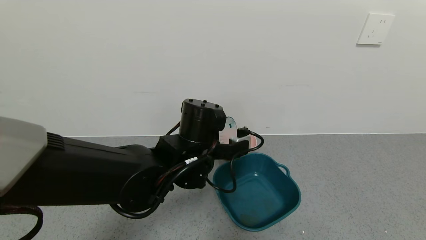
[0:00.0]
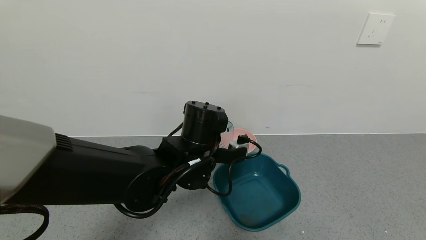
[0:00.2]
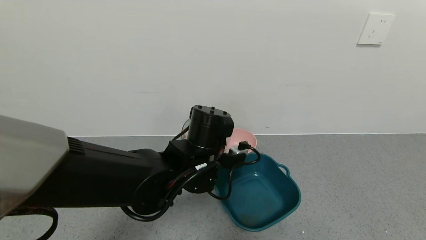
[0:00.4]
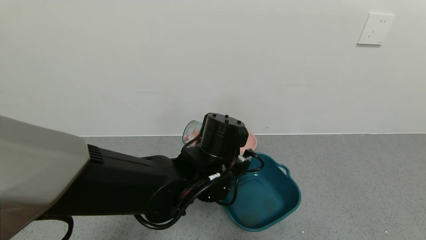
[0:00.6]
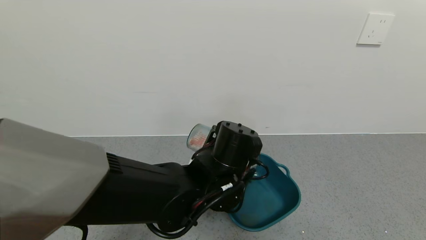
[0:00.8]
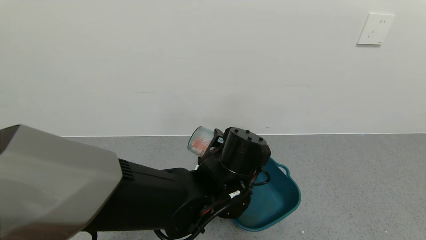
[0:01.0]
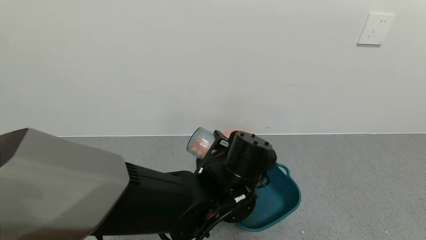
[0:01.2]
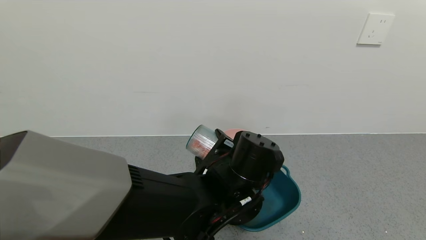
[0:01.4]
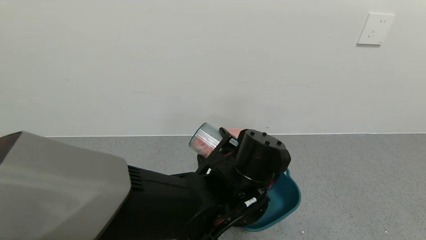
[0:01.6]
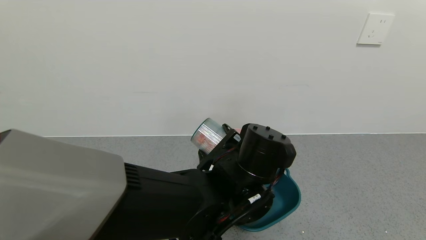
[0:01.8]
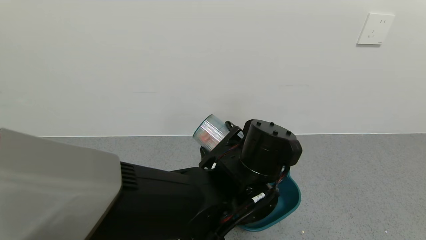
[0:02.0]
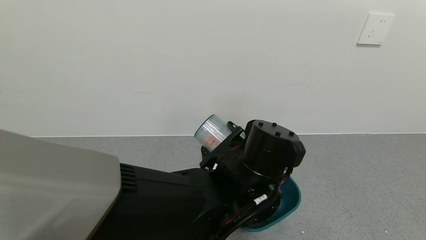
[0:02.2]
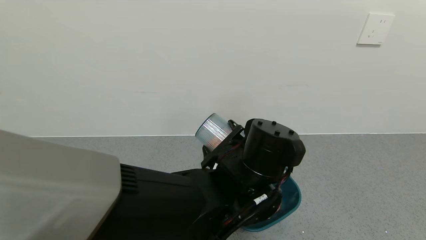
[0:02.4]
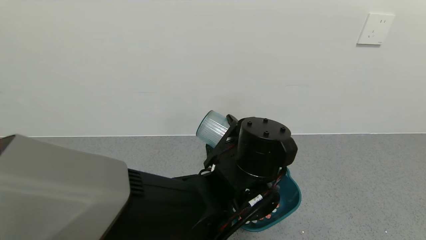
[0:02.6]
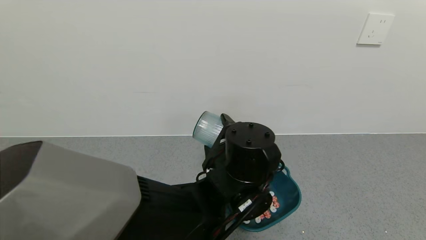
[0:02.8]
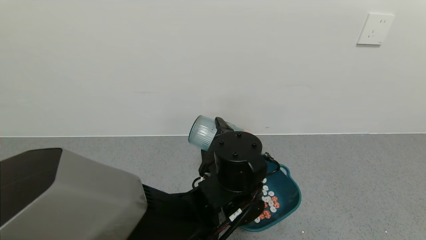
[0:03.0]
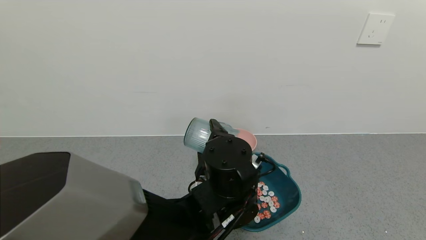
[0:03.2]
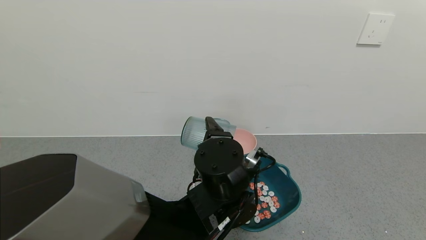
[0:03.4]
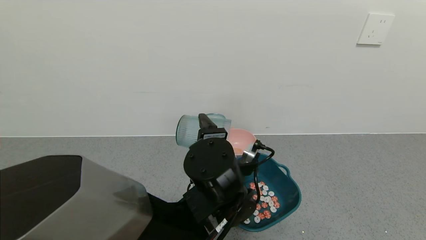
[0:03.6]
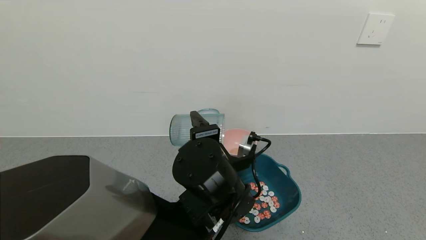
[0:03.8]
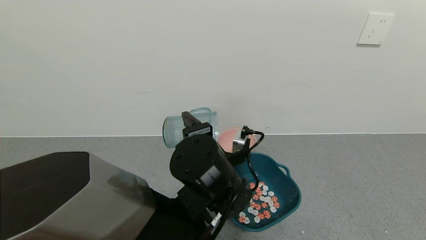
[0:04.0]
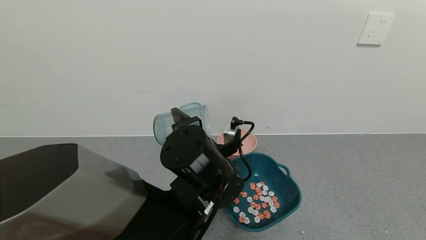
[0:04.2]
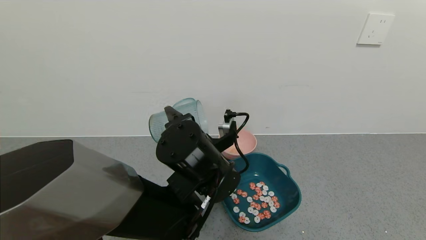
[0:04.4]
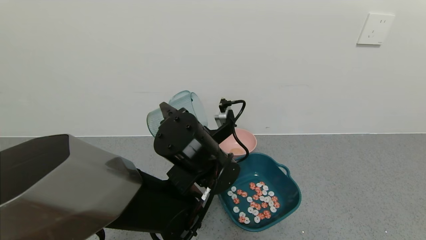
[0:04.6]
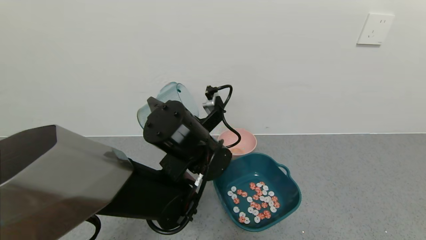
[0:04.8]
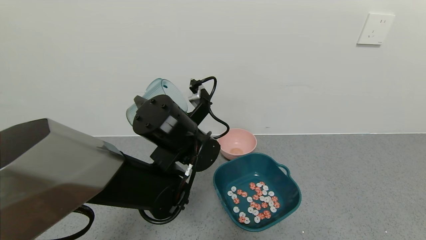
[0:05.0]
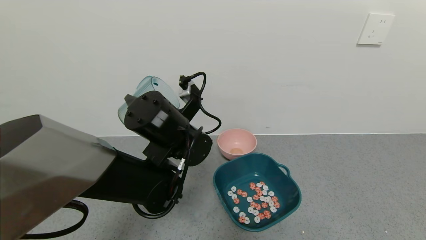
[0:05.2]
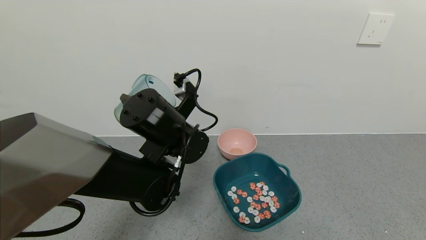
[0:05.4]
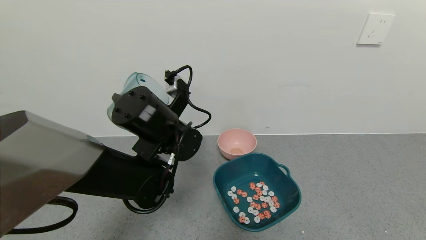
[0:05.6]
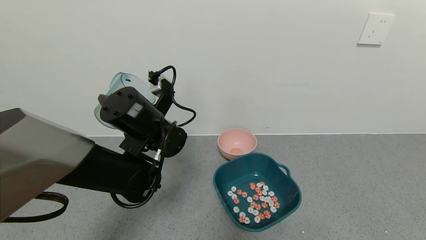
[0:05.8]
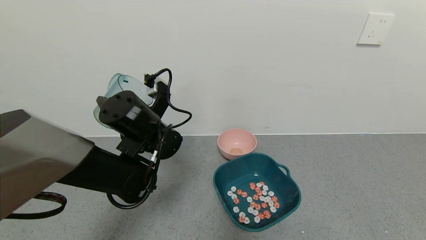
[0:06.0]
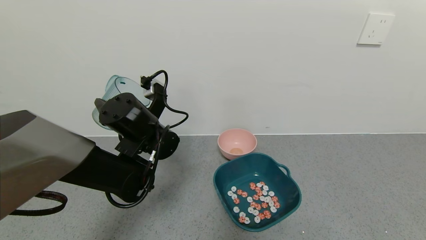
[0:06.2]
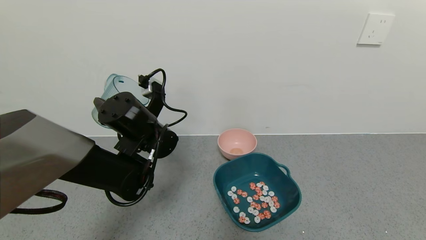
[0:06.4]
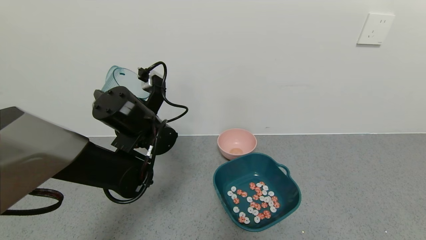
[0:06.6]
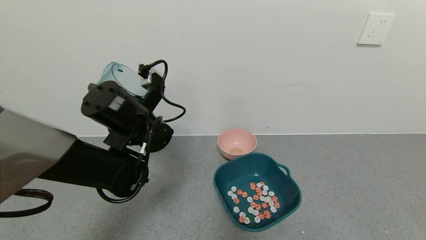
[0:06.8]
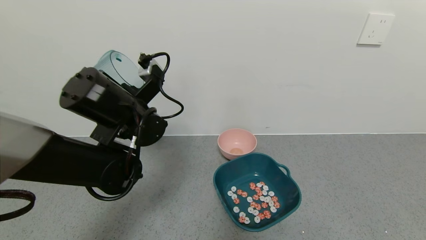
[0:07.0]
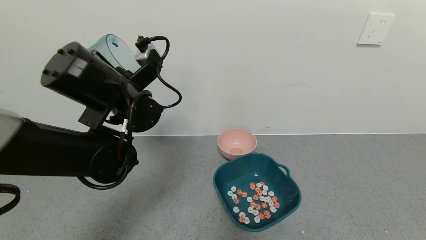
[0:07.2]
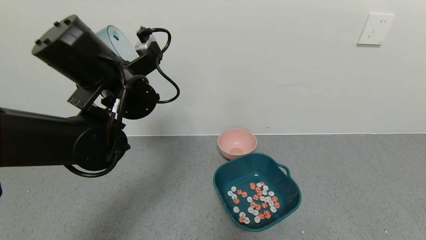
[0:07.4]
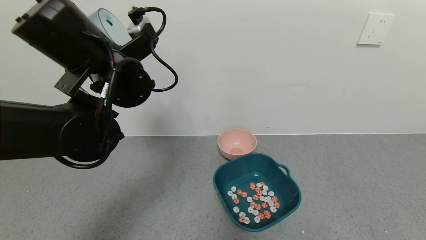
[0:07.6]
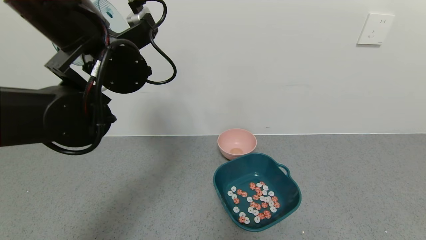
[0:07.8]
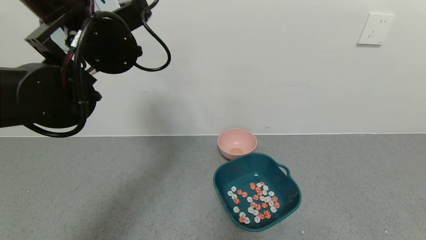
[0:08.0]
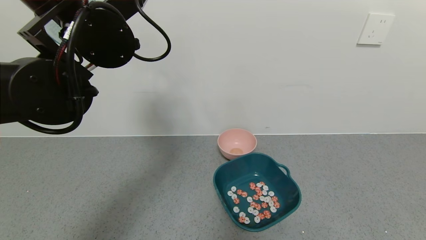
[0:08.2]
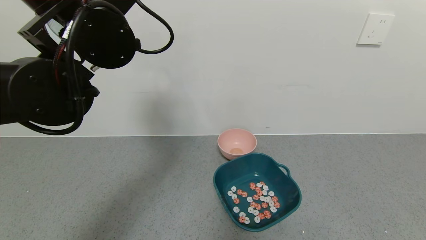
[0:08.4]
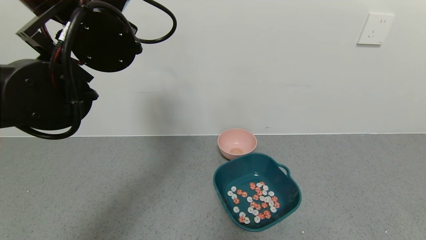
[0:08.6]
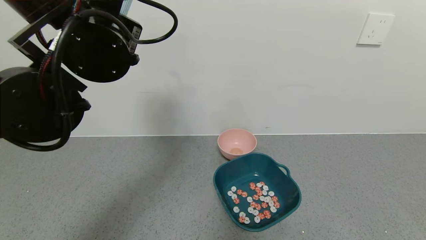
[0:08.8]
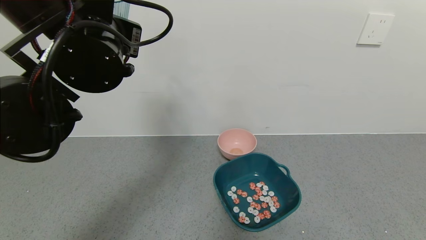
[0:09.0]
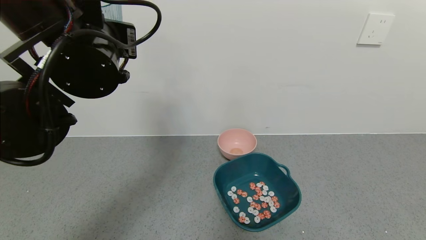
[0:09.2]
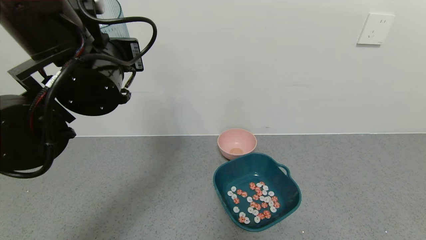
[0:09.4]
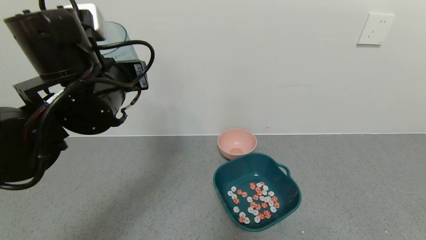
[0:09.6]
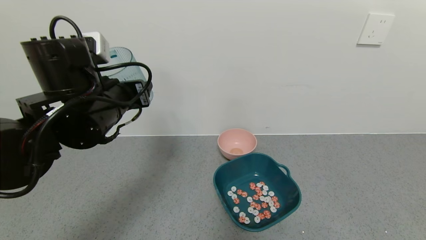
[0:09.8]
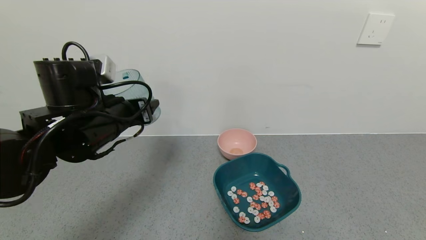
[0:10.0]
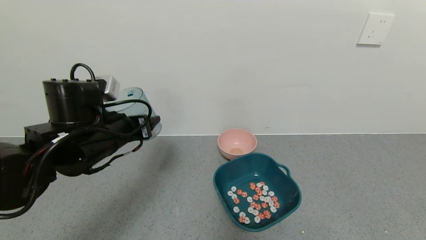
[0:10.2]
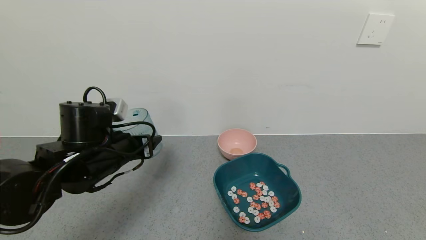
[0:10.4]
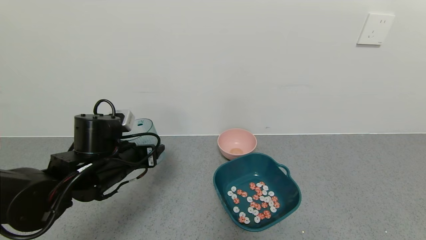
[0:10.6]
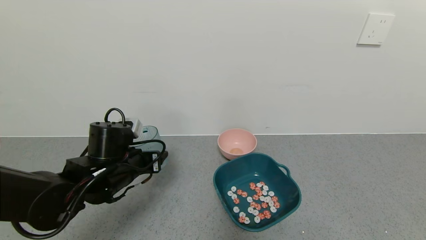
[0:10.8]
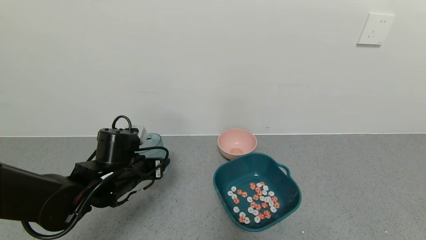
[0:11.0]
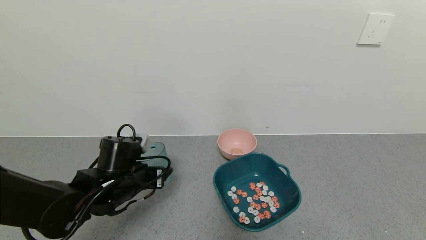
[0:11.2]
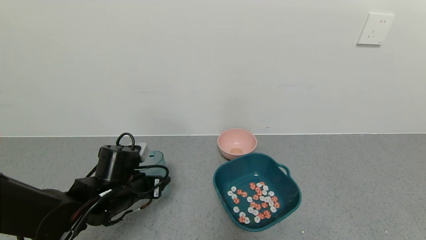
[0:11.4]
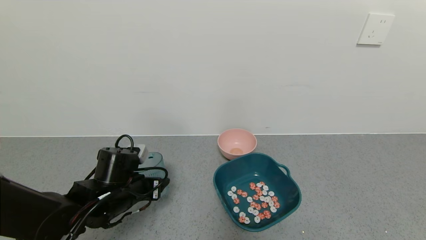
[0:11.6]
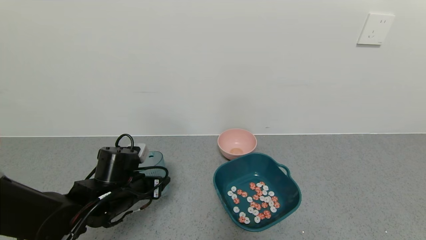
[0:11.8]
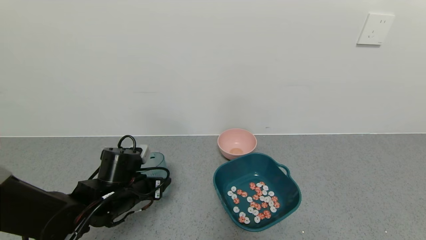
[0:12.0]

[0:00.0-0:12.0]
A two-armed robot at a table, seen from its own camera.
Task of the whole recording: use a gripper to pick up the cup and pour the solid into a bowl or tray.
Step, 0:00.0 to 0:03.6: Pour the shrimp beans into the green bowl with the left gripper.
0:00.0 to 0:01.6: The left gripper heads to the right, covering about 5 cm.
0:03.0 to 0:04.4: The left gripper moves about 5 cm.
0:04.4 to 0:06.0: The left gripper travels to the left and forward by roughly 15 cm.
0:06.0 to 0:07.6: The left gripper heads upward, covering some 10 cm.
0:09.0 to 0:10.4: The left gripper shifts some 15 cm downward.
0:10.4 to 0:12.0: The left gripper heads downward, covering approximately 10 cm.

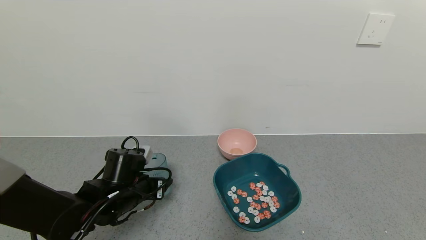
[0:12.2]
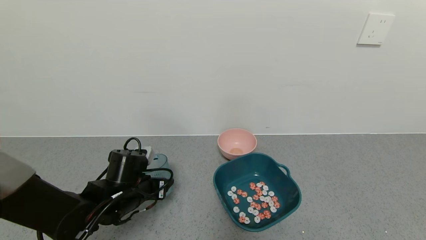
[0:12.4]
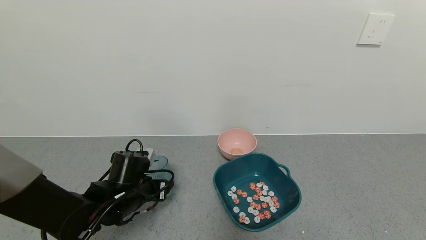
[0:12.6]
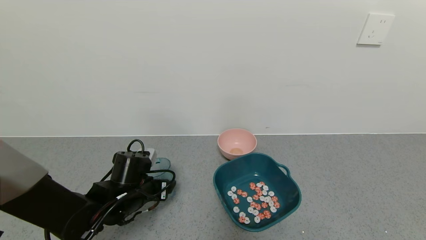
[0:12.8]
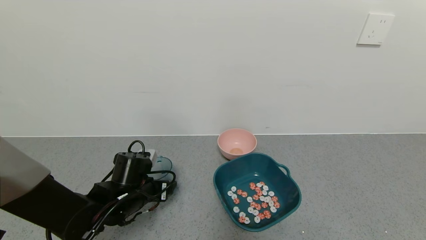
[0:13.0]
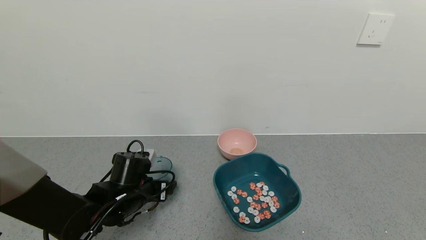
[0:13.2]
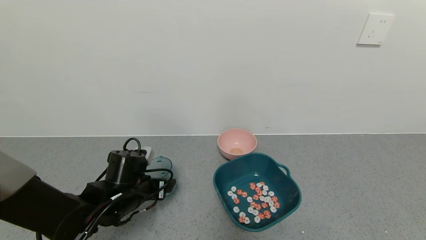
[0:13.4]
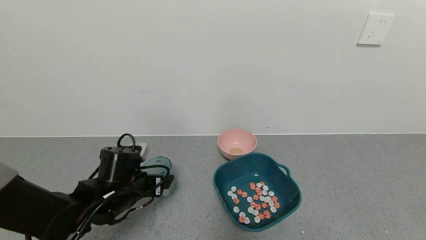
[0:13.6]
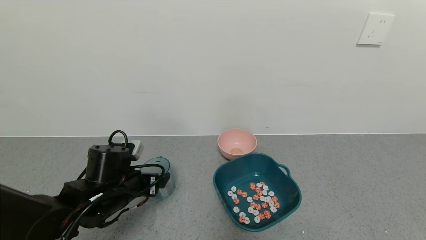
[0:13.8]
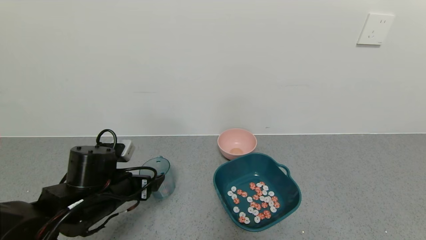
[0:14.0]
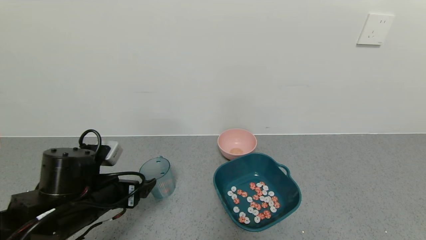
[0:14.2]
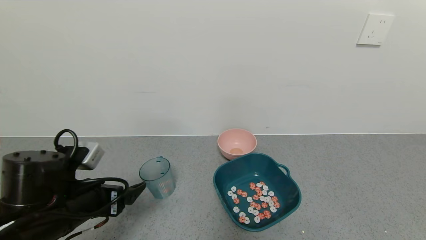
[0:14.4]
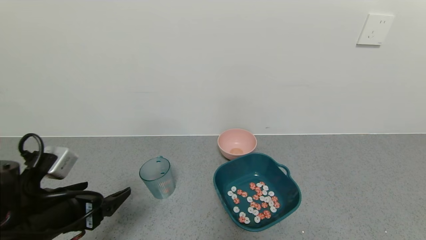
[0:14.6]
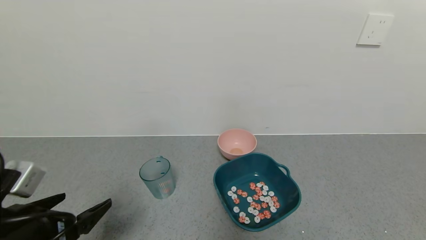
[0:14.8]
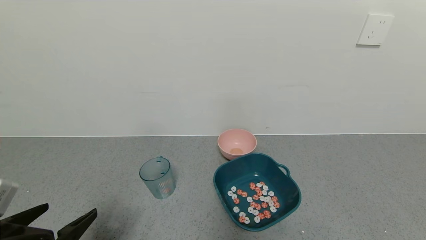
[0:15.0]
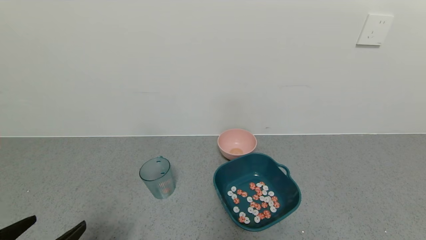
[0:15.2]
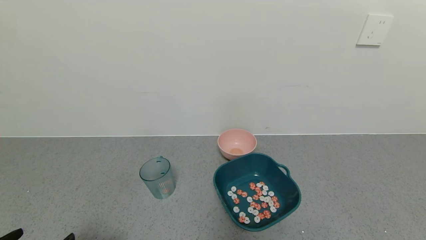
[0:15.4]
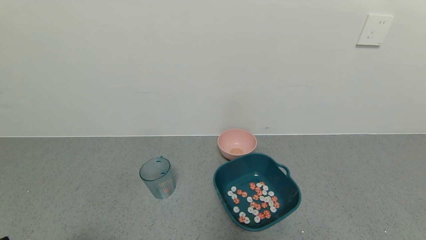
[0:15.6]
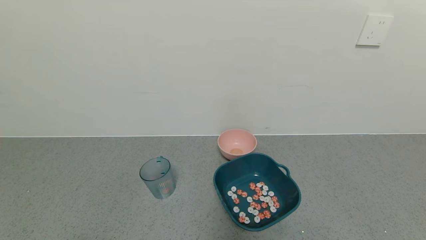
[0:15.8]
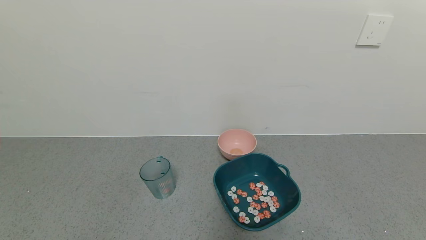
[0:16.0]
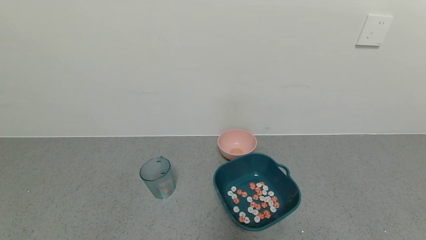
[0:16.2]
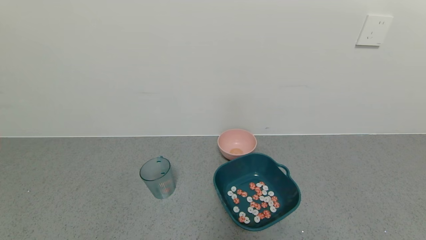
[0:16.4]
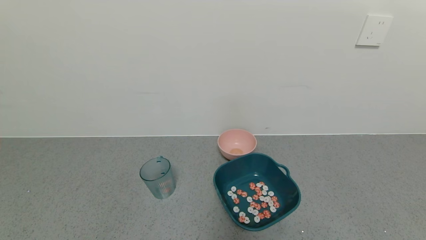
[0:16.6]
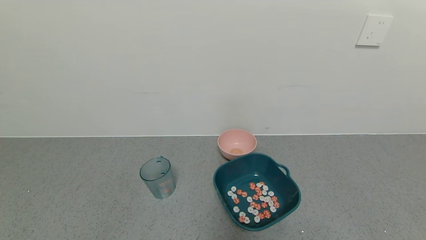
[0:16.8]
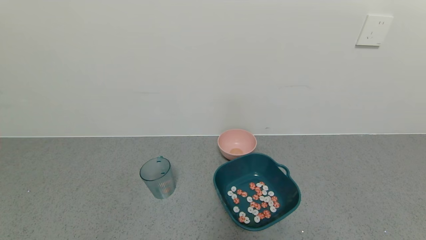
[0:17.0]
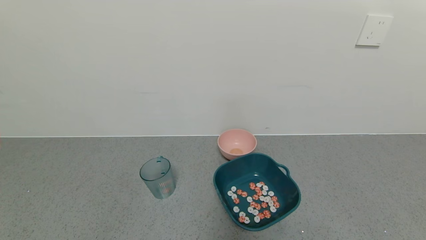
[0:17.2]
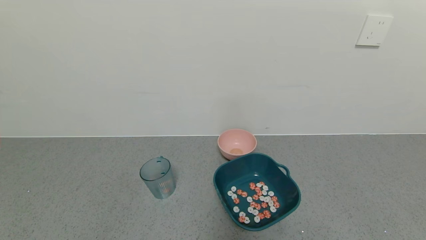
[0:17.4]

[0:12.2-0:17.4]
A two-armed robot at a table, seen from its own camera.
Task of the whole recording: use a gripper to pick up the cup and pour the solid into a bowl or tray.
0:12.2 to 0:14.0: The left gripper opens.
0:14.0 to 0:15.6: The left gripper is displaced backward by approximately 20 cm.
